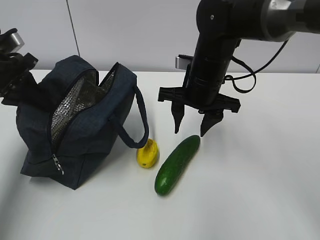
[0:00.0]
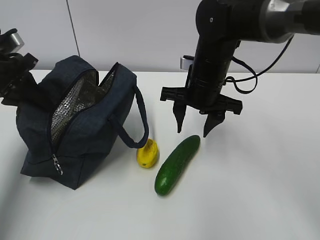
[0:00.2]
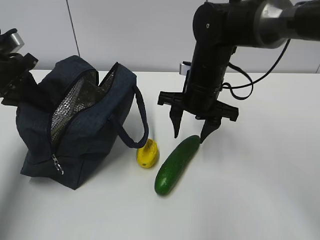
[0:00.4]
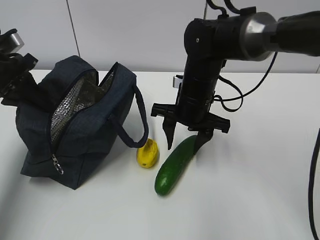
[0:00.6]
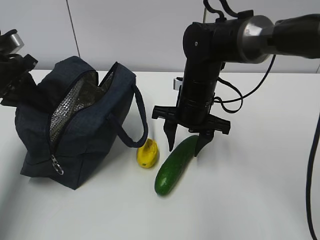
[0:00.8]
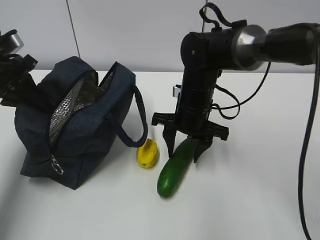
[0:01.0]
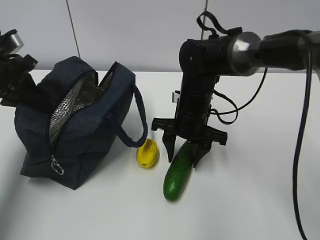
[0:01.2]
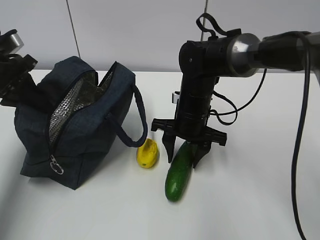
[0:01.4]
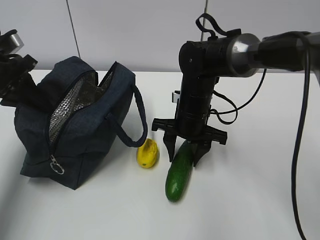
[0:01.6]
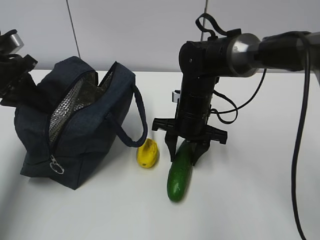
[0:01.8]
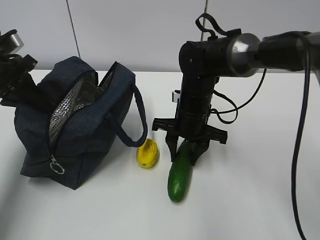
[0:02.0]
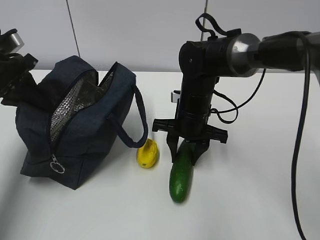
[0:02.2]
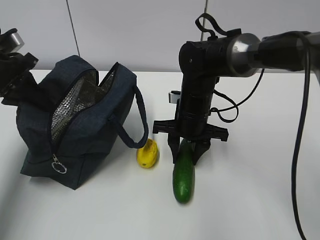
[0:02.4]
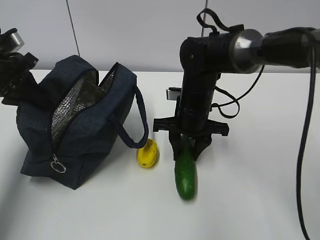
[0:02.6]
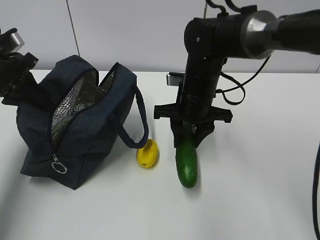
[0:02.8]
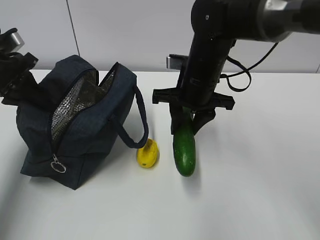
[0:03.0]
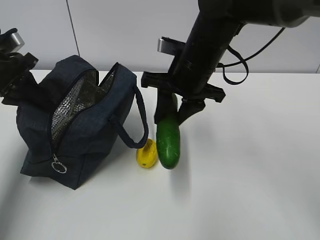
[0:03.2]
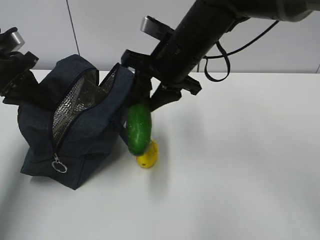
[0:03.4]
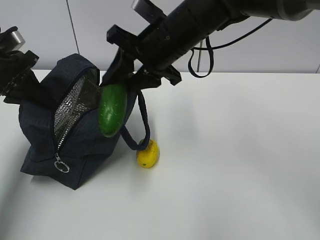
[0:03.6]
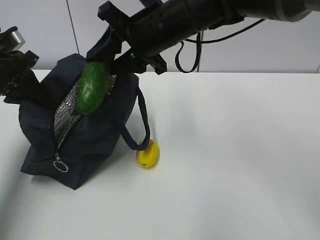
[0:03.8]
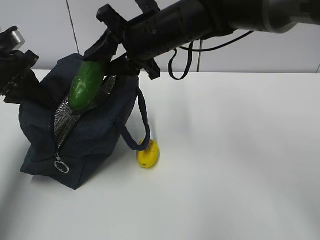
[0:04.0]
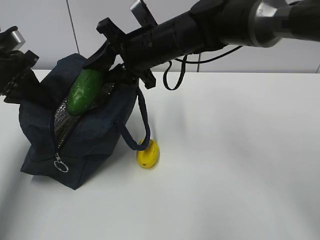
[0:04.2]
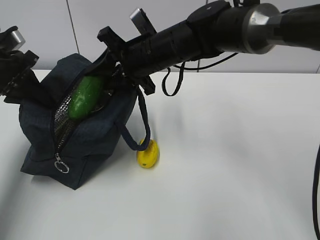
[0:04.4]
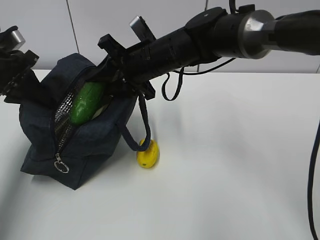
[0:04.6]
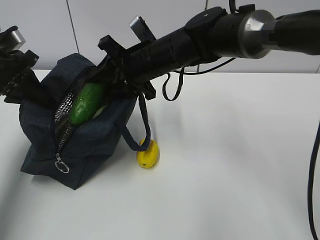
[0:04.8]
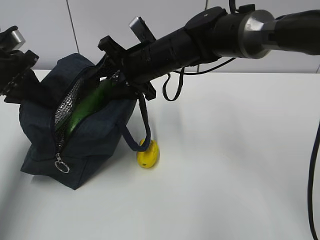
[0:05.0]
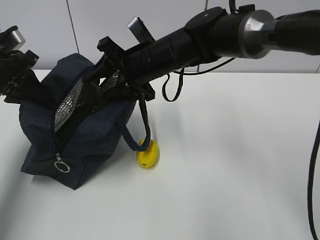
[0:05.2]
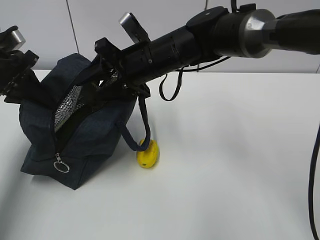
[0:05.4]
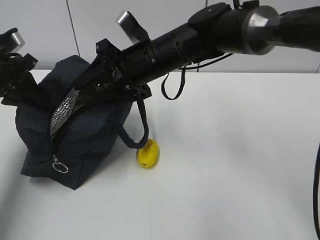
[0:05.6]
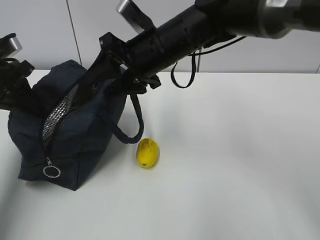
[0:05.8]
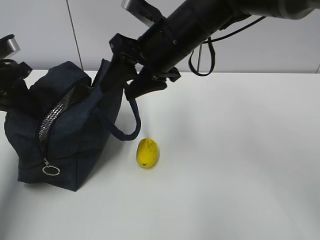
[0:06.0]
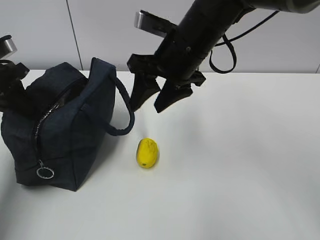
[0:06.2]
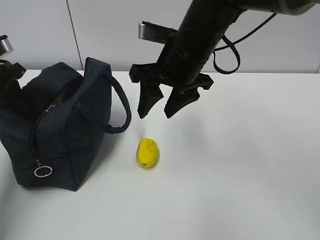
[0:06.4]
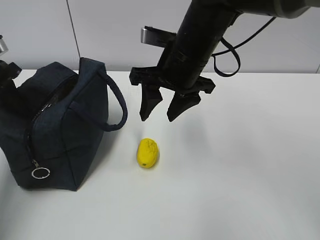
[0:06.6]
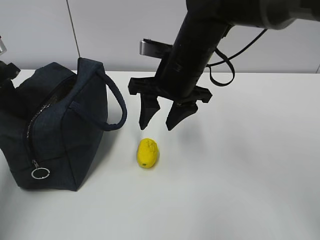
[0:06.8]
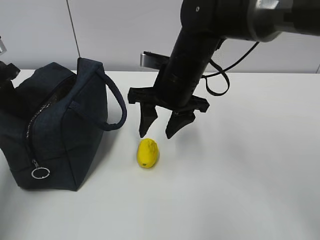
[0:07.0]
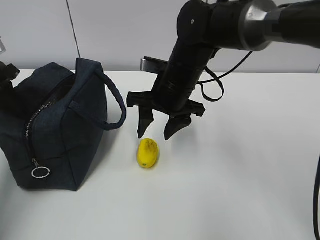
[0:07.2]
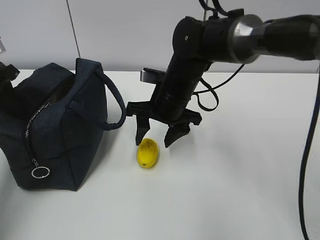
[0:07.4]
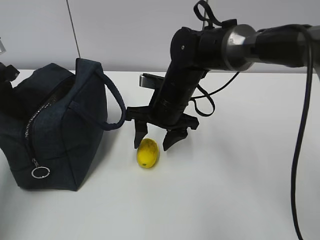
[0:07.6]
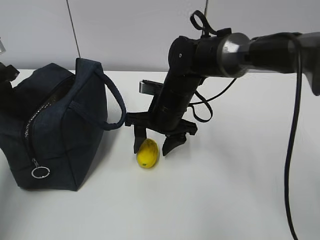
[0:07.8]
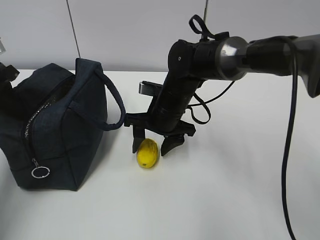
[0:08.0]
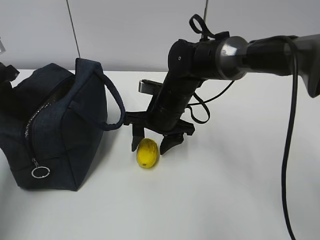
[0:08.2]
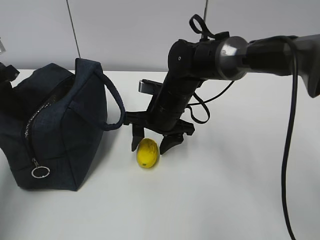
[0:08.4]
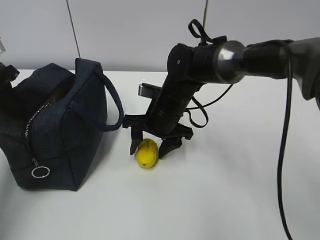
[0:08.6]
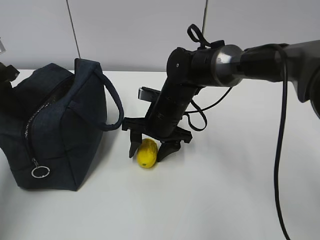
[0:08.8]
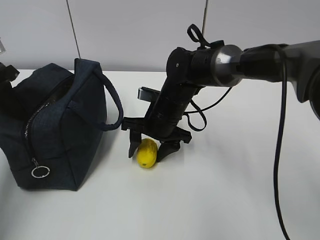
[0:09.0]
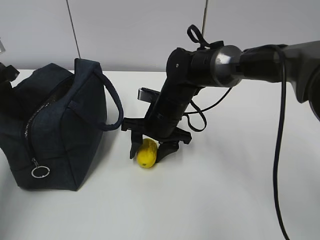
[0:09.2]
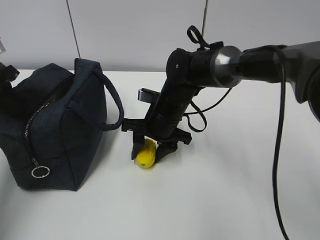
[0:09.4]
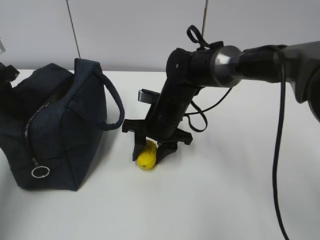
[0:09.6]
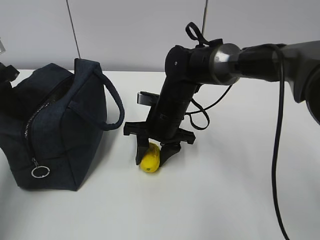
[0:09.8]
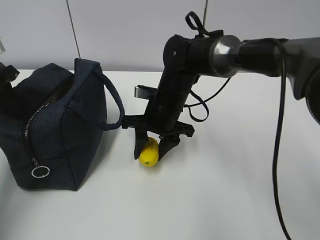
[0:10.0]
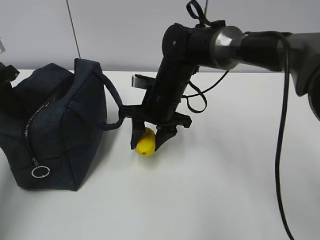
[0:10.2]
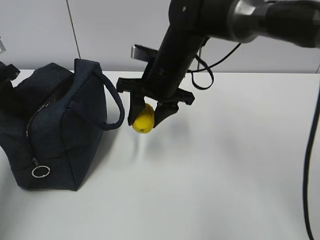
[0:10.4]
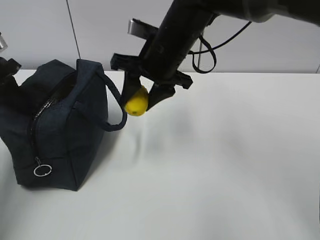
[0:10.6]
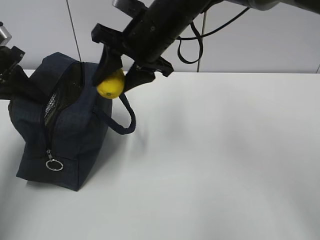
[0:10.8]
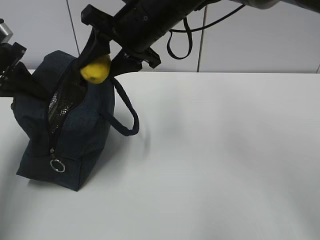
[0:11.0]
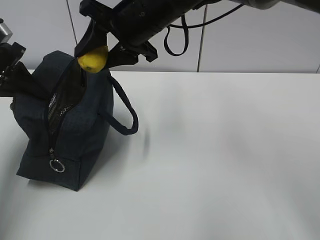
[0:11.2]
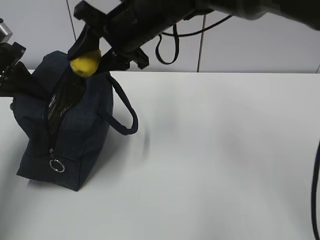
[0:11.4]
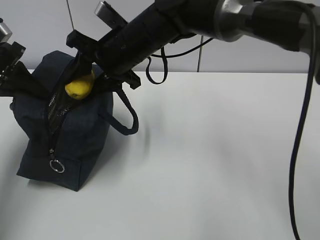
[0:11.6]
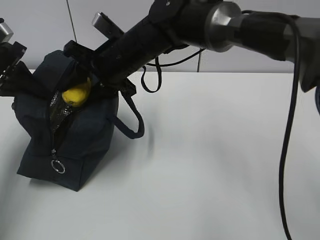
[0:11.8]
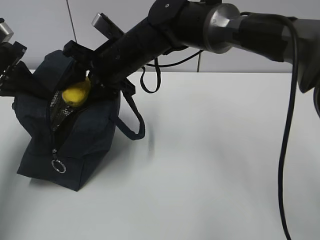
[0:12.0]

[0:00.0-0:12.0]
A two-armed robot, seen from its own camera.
Step, 0.0 to 2.4 s: Grasp the cucumber with the right gripper.
Step, 2.6 to 5.0 s: Place the cucumber into the package with the right gripper.
Step, 5.4 to 9.6 s: Grasp the lemon with the right gripper.
0.0 to 1.6 s: The right gripper travels downward by about 5 cm.
1.6 to 3.0 s: The right gripper is displaced upward by roughly 5 cm.
3.0 to 4.4 s: The right gripper is displaced to the left by roughly 5 cm.
4.4 to 6.0 s: The right gripper moves roughly 5 cm.
6.0 to 7.6 s: The right gripper travels downward by approximately 10 cm.
7.6 to 9.0 s: The grippers move only a little.
9.0 to 10.4 s: The right gripper is displaced upward by some 10 cm.
10.4 to 12.0 s: The right gripper heads to the left, covering about 5 cm, and moves approximately 10 cm upward and comes back.

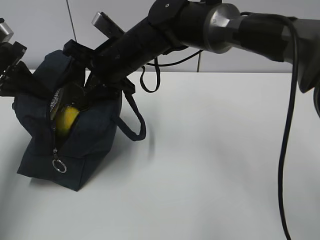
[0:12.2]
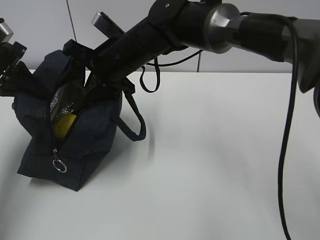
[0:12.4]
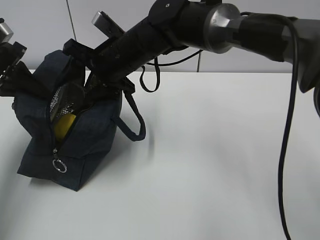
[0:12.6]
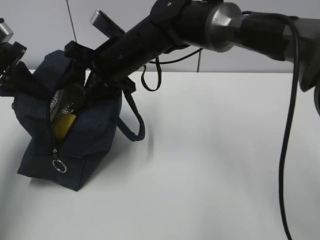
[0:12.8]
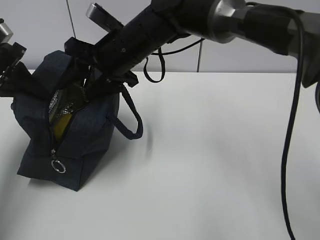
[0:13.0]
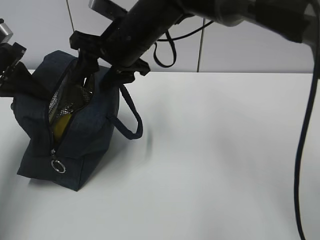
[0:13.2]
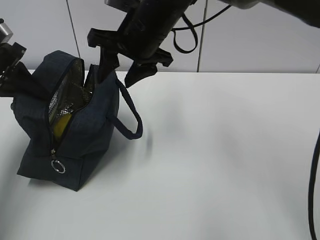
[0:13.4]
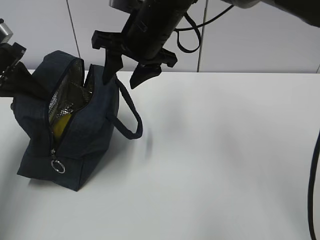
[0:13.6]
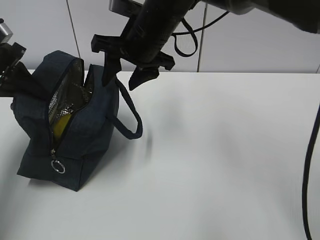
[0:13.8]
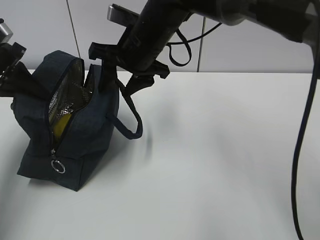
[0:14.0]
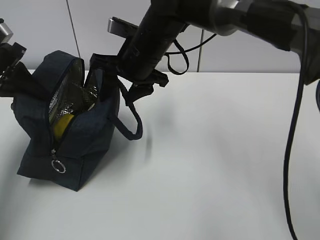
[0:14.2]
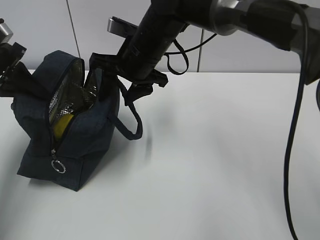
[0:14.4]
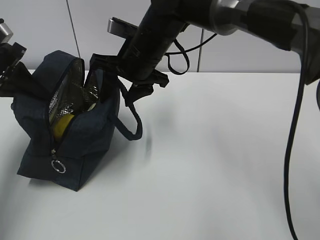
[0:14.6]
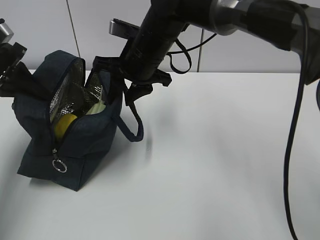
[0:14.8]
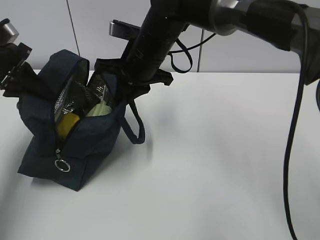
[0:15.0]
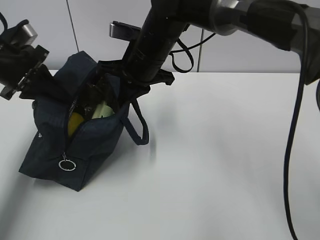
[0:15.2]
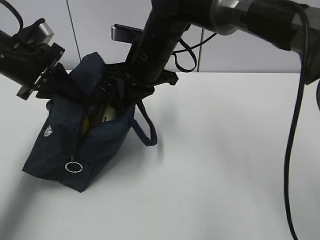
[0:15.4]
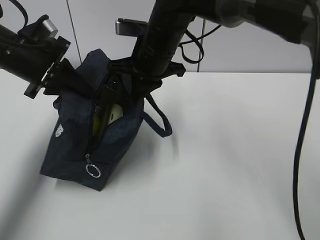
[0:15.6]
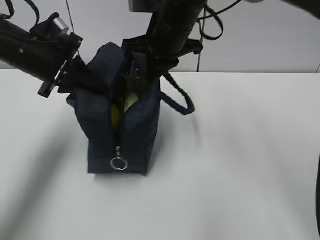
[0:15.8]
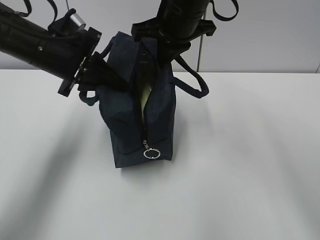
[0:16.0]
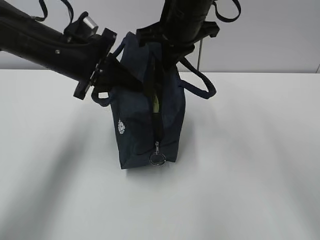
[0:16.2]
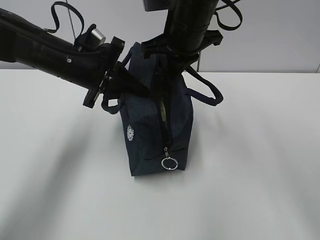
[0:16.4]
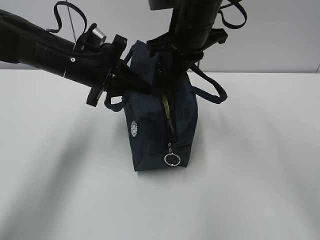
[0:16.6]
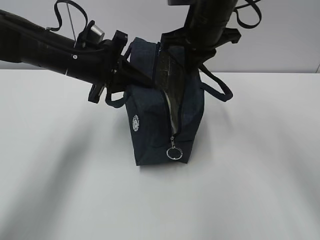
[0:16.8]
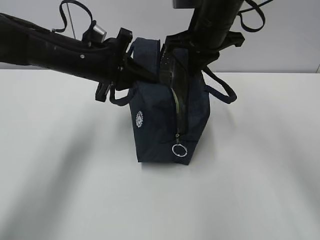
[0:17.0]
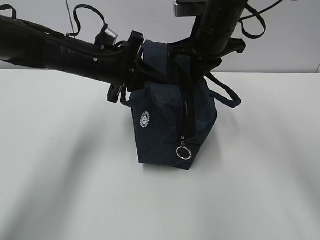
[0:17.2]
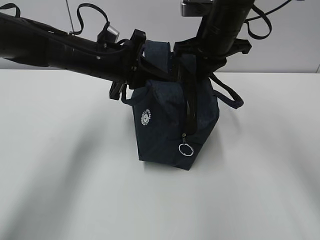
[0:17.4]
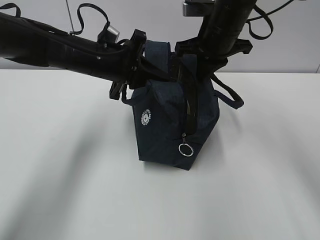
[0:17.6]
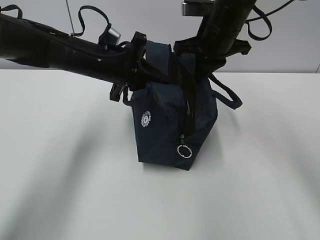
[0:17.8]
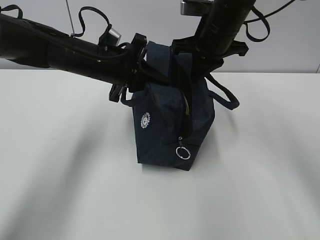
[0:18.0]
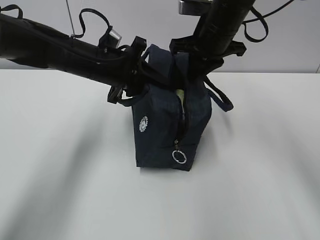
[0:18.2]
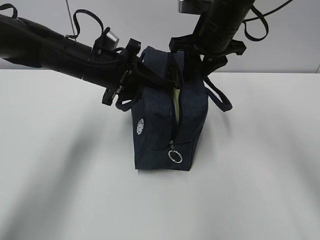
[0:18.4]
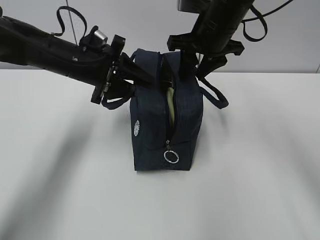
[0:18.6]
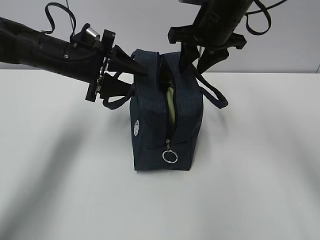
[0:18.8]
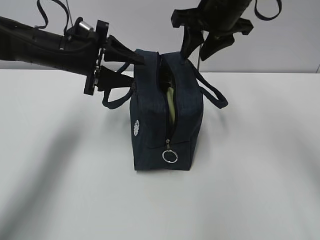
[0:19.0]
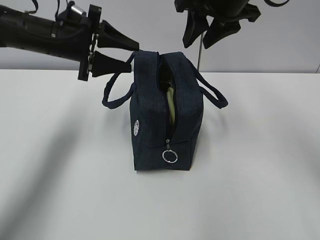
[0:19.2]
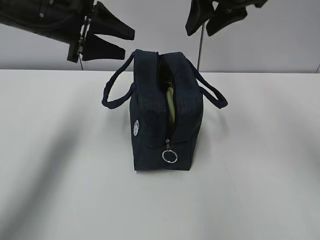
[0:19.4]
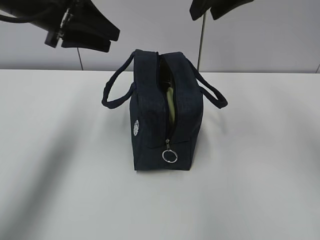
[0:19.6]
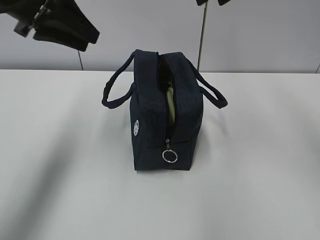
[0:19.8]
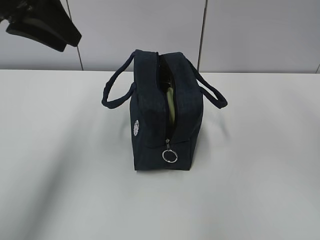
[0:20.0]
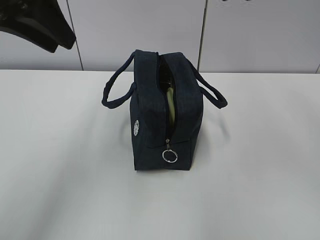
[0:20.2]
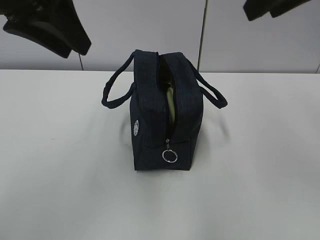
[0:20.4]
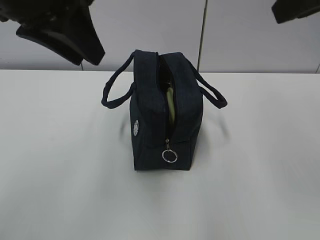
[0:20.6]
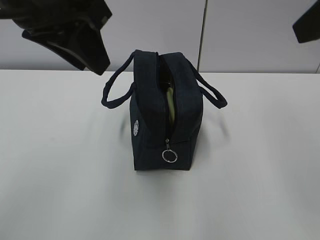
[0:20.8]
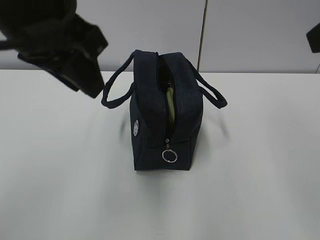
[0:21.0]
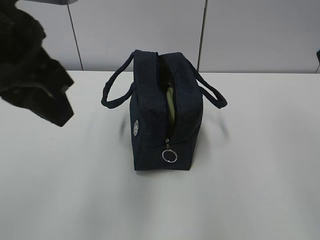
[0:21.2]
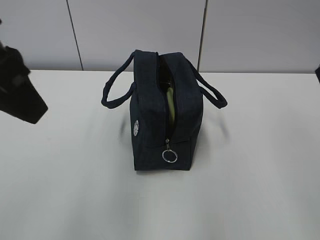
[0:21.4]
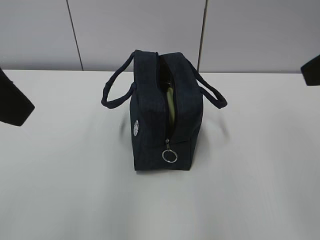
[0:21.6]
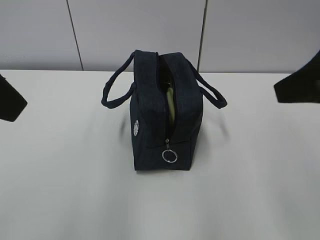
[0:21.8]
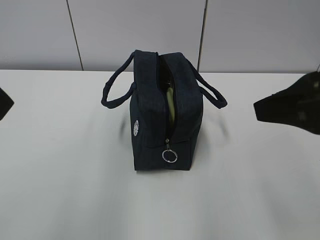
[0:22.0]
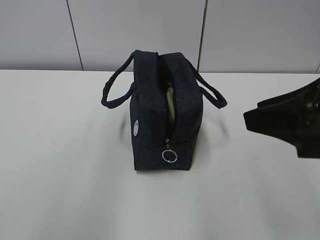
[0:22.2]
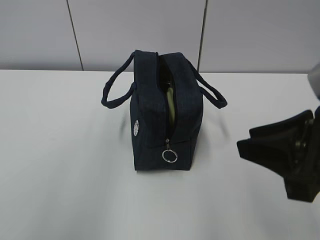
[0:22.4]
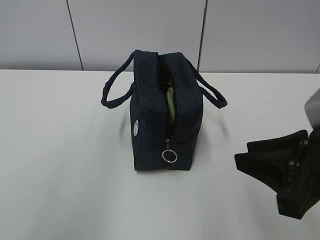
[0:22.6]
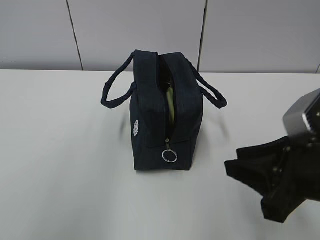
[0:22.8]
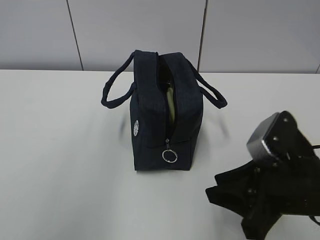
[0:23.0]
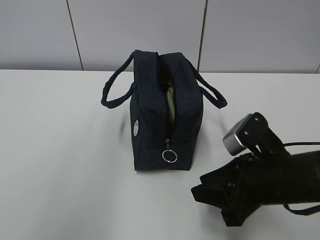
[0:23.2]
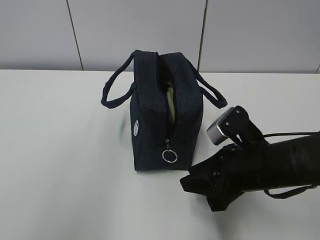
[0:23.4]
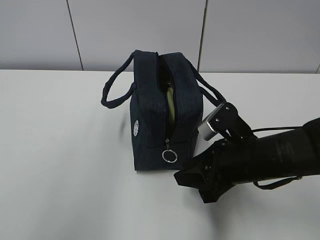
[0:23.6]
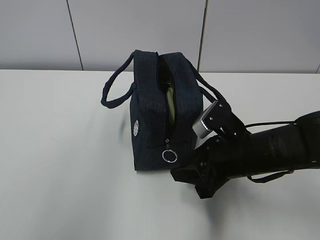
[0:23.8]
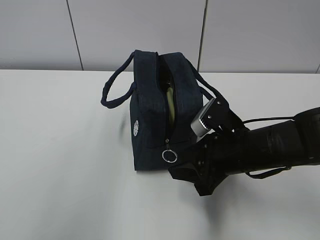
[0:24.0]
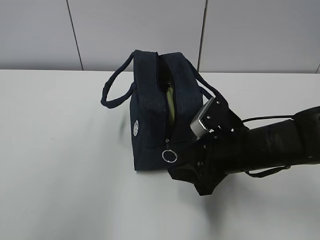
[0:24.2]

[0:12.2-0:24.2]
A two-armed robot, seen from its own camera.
Step, 12.2 to 14.4 s: Place the lemon into the package with the right gripper.
12.2 to 13.8 s: The right gripper moves some 5 cm.
13.8 to 15.2 s: The right gripper closes.
15.2 to 16.6 s: The right gripper is displaced to the right and upward by roughly 10 cm. Meanwhile the left gripper travels to the right by about 15 cm.
16.6 to 18.2 s: The right gripper ends up about 5 cm from where it was.
18.2 to 19.8 s: The left gripper shifts roughly 15 cm upward and to the left, and opens, then closes once more. The right gripper goes roughly 15 cm upward and backward, and opens its fingers.
19.8 to 21.2 s: The right gripper moves backward, about 20 cm; the left gripper shifts roughly 15 cm backward and to the right.
21.2 to 22.6 s: The right gripper moves downward, roughly 15 cm. Meanwhile the left gripper travels to the left and backward by about 10 cm.
22.6 to 24.2 s: The right gripper moves forward, downward and to the left, some 15 cm.
